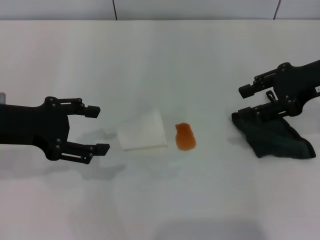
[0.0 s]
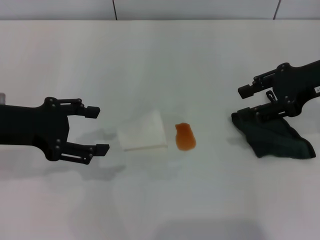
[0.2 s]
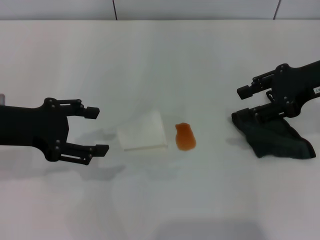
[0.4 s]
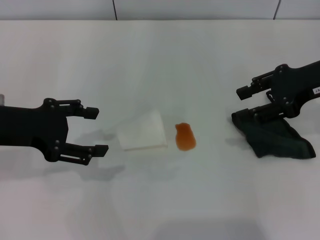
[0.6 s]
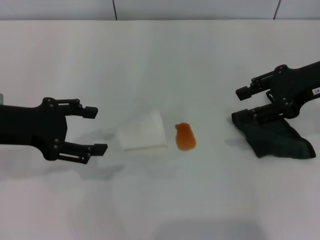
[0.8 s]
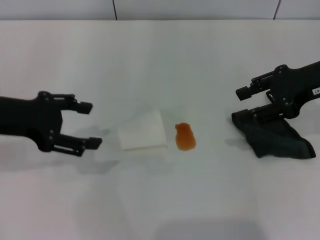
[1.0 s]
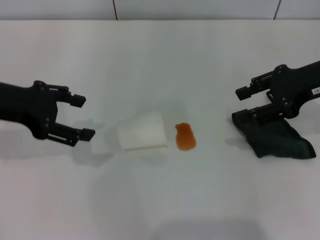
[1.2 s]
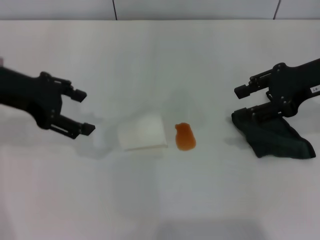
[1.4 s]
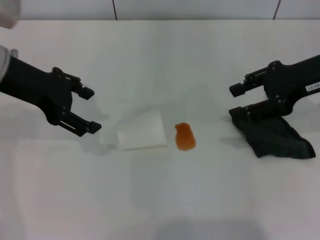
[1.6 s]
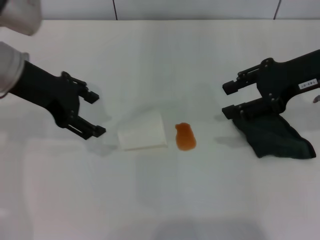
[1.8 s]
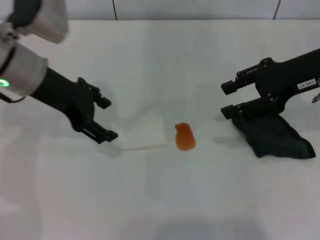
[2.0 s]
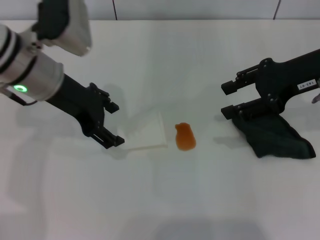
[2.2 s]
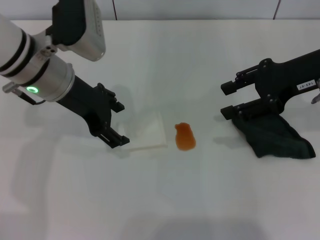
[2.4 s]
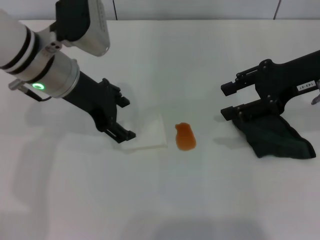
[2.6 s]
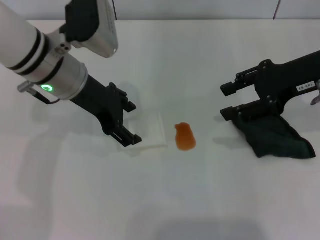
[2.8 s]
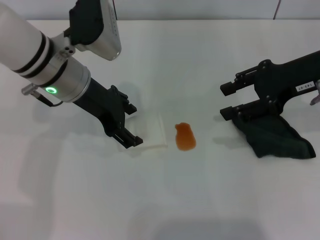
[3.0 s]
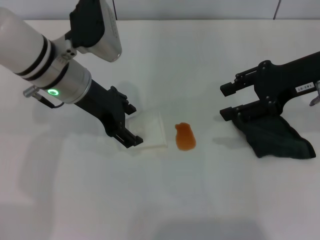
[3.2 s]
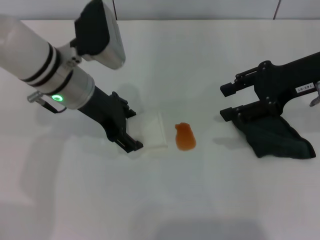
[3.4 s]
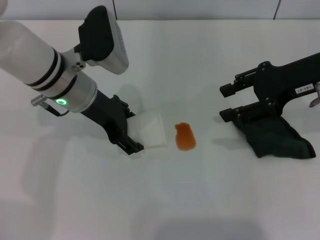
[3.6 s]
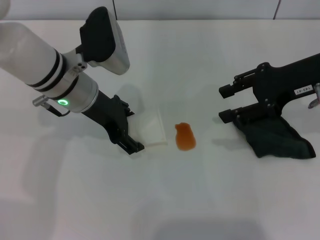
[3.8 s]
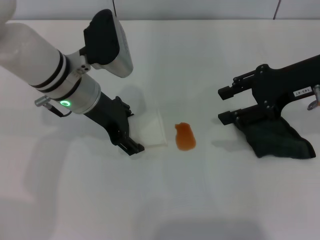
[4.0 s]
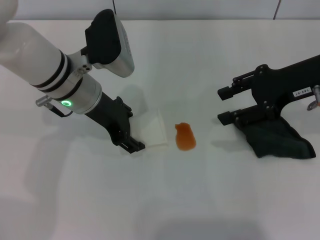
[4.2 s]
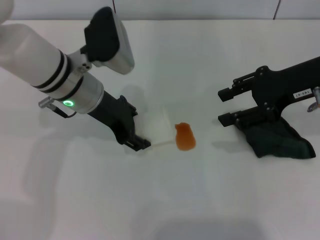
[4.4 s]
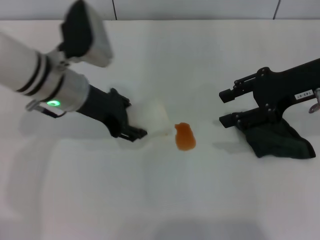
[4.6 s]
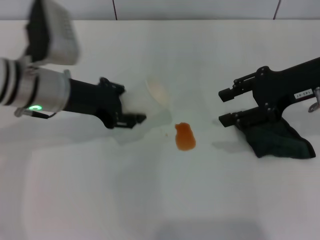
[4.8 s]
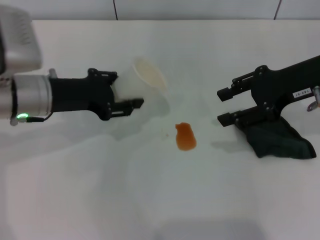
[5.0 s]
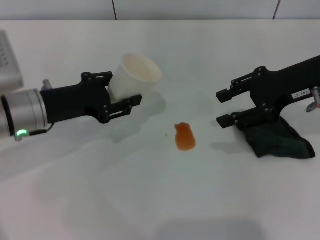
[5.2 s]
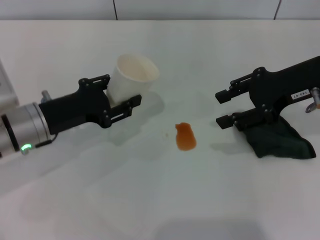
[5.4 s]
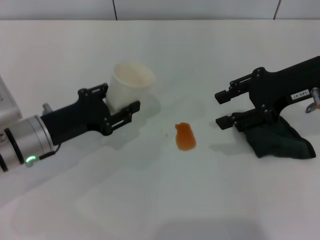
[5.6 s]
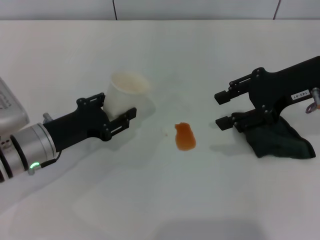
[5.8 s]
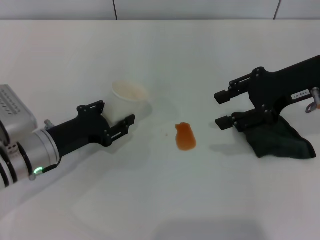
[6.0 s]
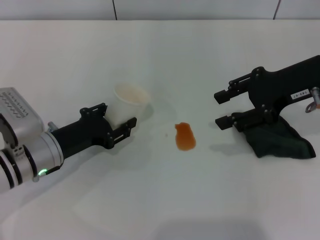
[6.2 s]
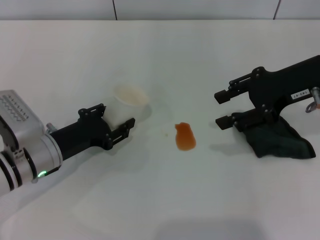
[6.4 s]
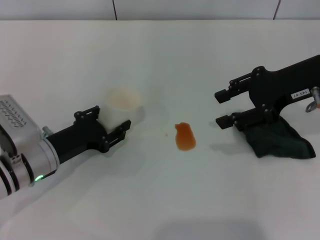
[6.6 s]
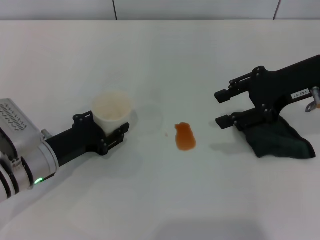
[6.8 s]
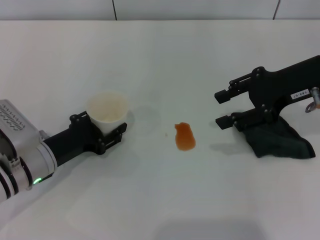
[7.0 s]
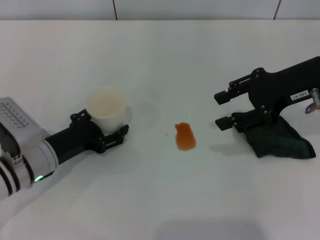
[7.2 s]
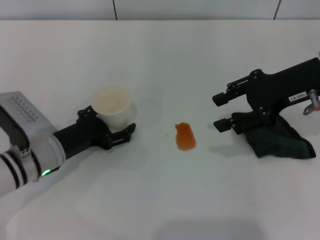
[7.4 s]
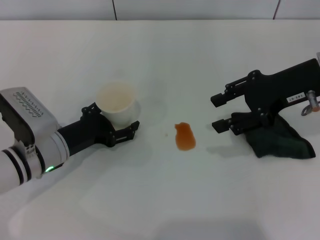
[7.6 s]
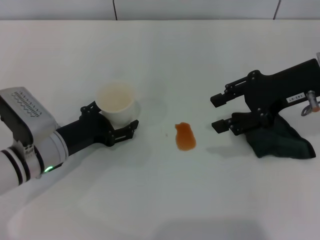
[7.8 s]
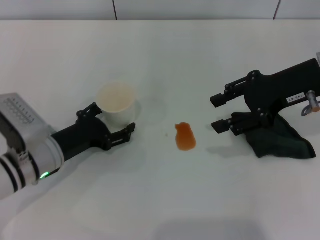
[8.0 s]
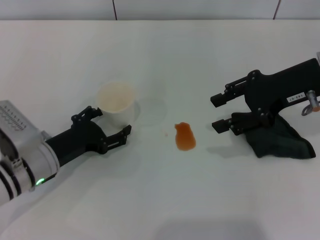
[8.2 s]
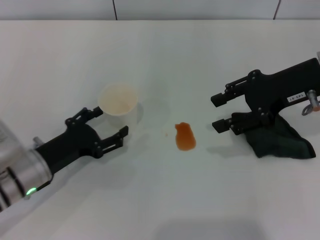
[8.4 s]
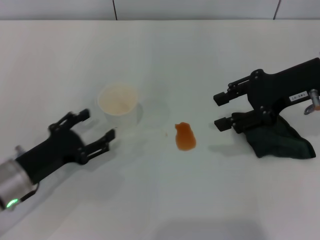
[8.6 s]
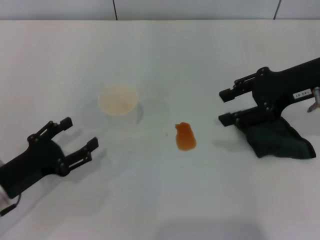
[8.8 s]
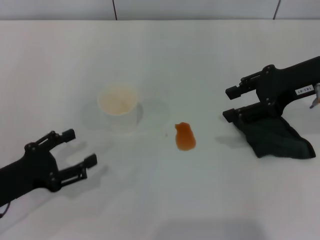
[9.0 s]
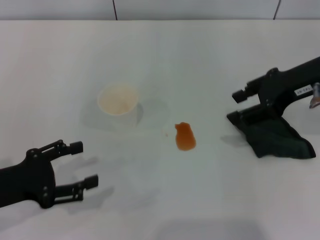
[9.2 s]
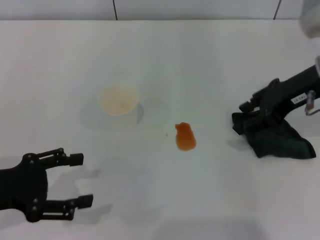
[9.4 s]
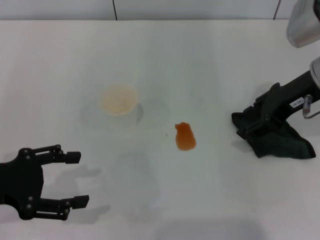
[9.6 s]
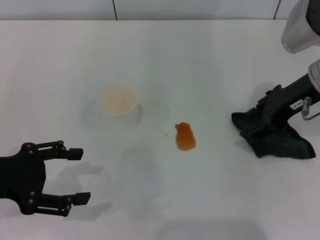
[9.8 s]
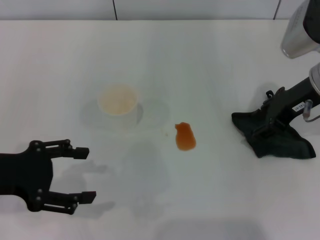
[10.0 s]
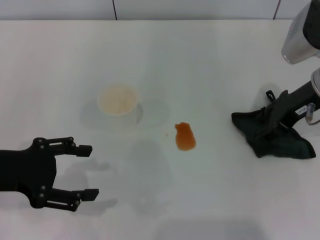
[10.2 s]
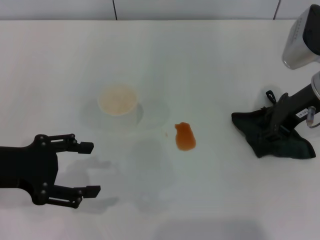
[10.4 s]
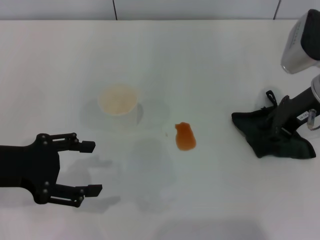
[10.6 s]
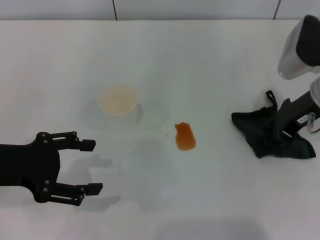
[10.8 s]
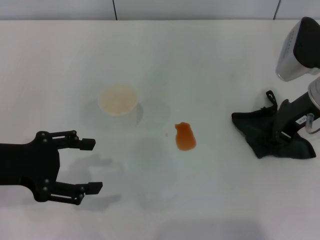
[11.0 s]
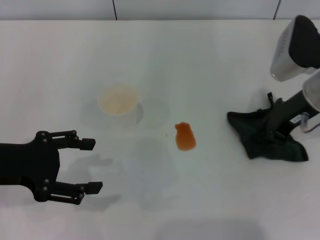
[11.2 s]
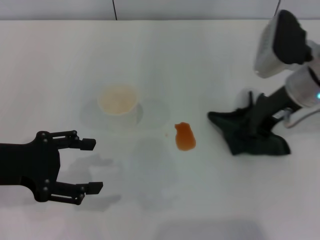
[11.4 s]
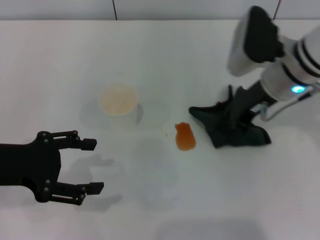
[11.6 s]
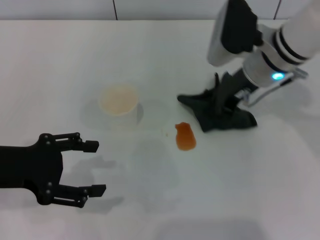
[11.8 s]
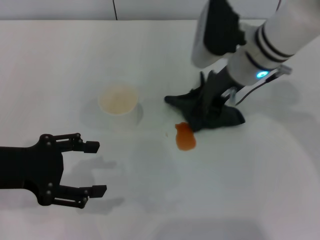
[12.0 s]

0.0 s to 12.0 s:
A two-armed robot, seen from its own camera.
Step, 0.0 to 4.2 s: Grasp the paper cup with the left gripper.
Step, 4.4 to 8.4 s: Stand the paper cup upright with the left gripper.
Step, 8.6 to 11.0 s: Grasp the rag with the right gripper.
0.0 to 1.6 s: The left gripper travels forward by approximately 5 cm.
1.6 to 3.0 s: The left gripper goes about 10 cm to the right.
3.0 to 4.4 s: The left gripper closes.
4.4 to 6.0 s: The left gripper is displaced downward, to the left and backward by approximately 15 cm, and closes up.
6.0 to 7.6 s: The left gripper opens.
7.6 to 9.0 s: The left gripper moves backward and to the left, some 10 cm.
9.0 to 10.4 s: The left gripper moves upward, some 10 cm.
10.4 to 12.0 s: The right gripper shifts roughly 10 cm to the left, and closes its fingers.

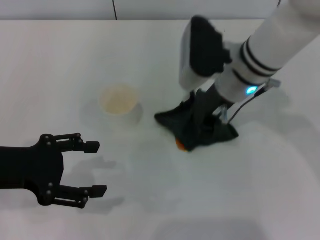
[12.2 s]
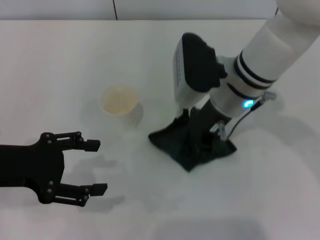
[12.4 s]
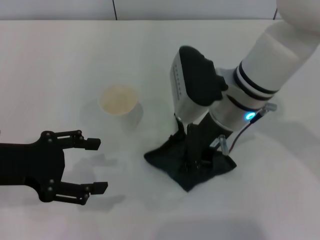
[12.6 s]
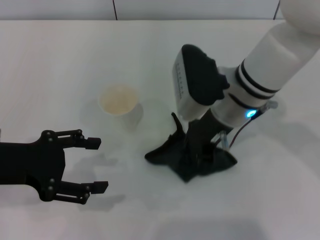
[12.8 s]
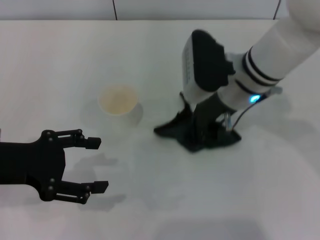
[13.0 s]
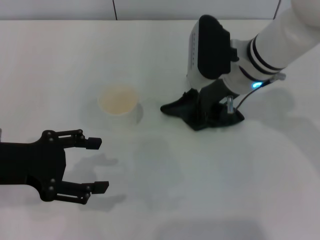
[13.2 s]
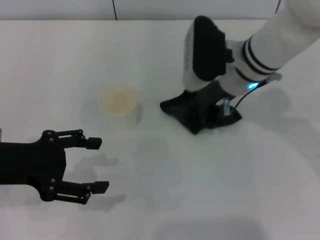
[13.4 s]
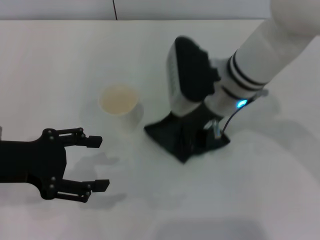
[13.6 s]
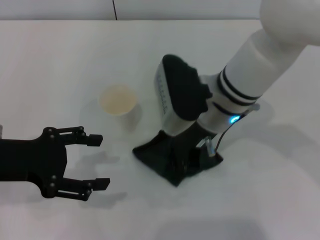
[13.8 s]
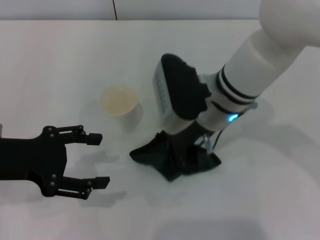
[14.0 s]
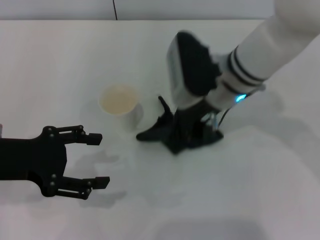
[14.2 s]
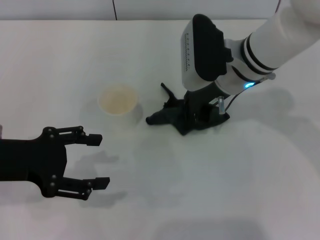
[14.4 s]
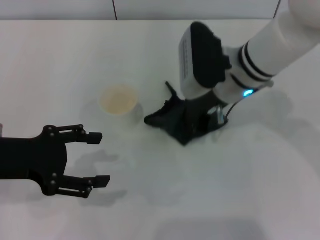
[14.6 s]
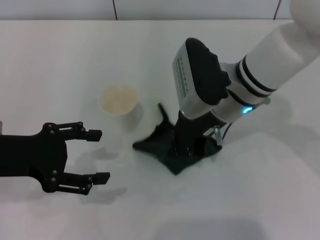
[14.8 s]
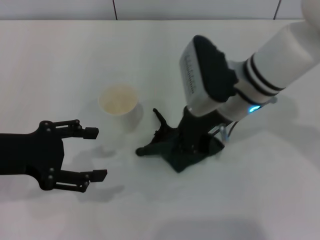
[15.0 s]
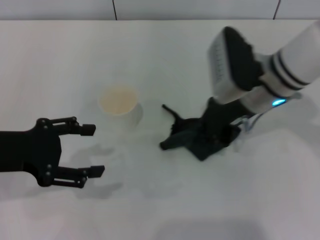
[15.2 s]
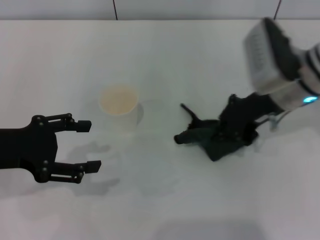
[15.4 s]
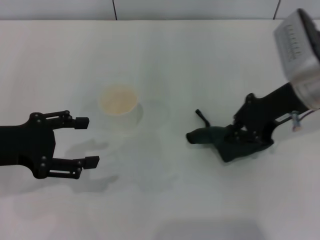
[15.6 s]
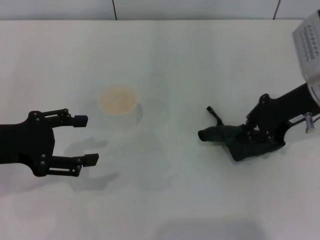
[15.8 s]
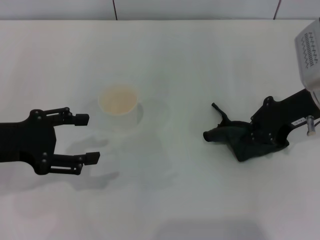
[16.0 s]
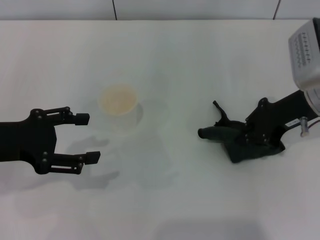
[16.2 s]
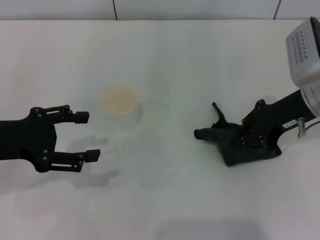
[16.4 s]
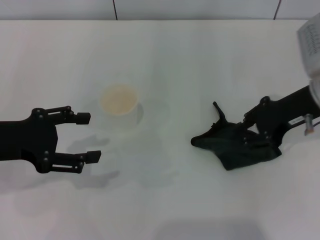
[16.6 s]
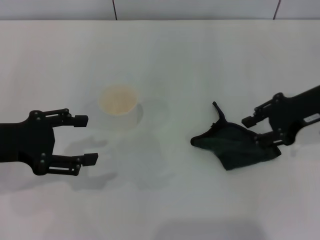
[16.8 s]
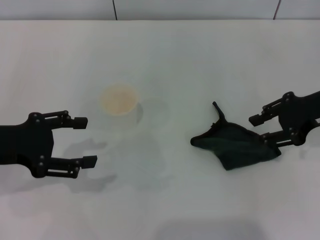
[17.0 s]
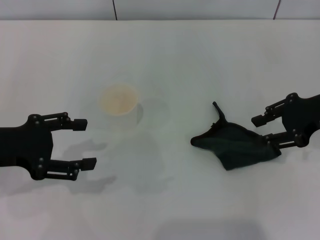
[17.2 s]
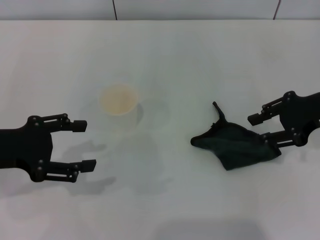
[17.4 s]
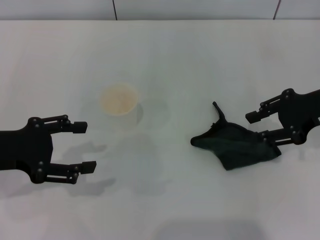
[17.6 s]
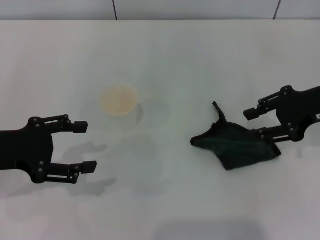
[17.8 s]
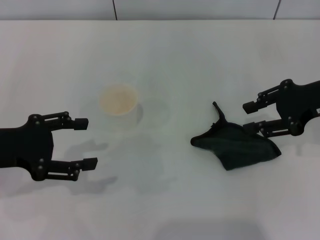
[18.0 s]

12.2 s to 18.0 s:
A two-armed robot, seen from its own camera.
Step, 12.2 to 15.4 s: Wipe the stains off the table with the right gripper.
Step, 15.6 to 16.8 s: Place the rag on the table with the right gripper.
12.2 to 15.0 s: The grippers move only a little.
15.0 to 16.6 s: The right gripper is displaced to the right by some 15 cm.
16.6 to 18.0 s: The right gripper opens up.

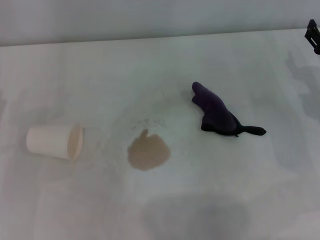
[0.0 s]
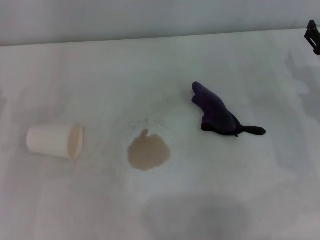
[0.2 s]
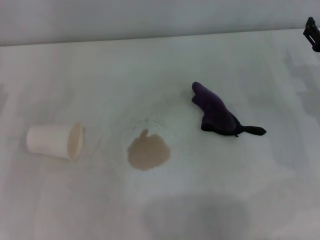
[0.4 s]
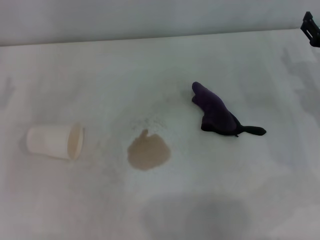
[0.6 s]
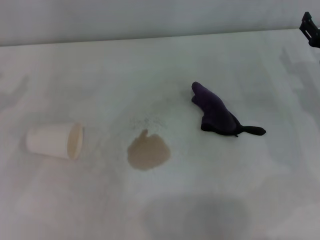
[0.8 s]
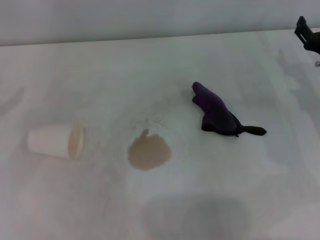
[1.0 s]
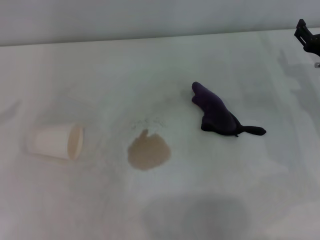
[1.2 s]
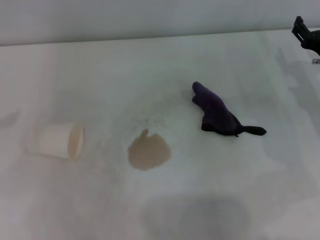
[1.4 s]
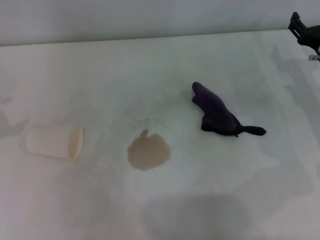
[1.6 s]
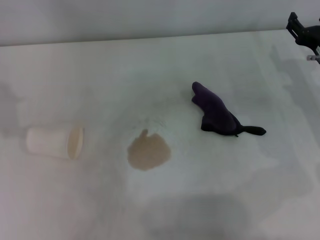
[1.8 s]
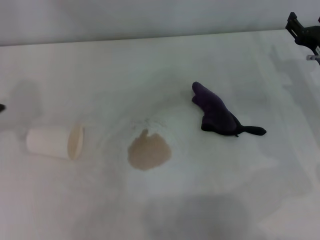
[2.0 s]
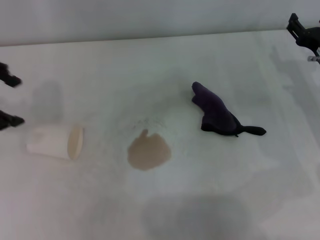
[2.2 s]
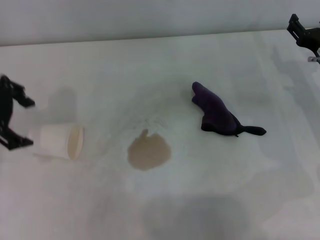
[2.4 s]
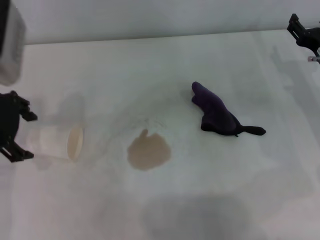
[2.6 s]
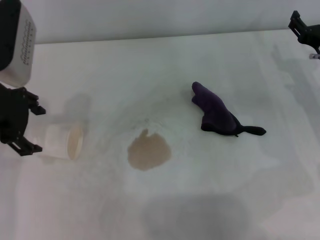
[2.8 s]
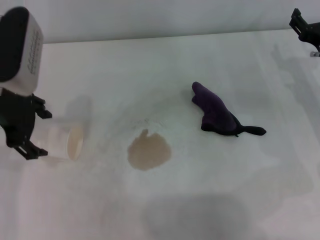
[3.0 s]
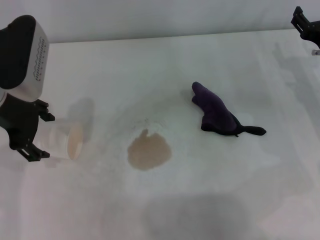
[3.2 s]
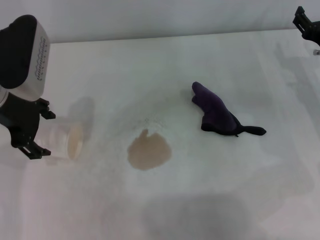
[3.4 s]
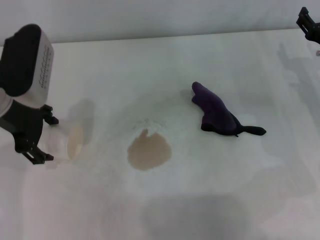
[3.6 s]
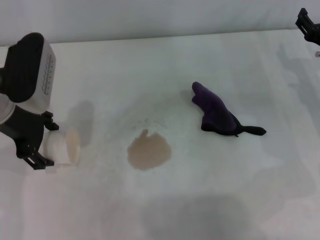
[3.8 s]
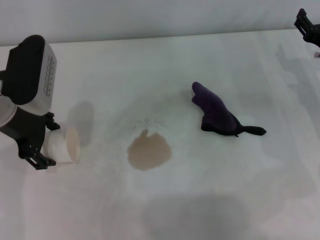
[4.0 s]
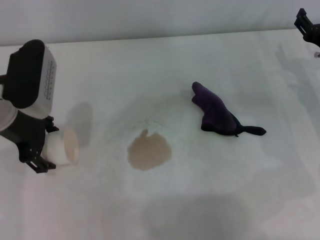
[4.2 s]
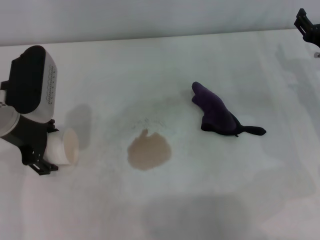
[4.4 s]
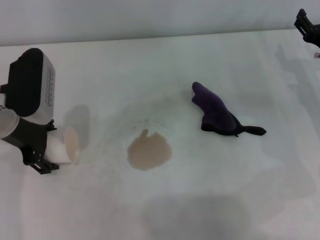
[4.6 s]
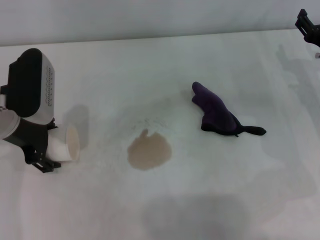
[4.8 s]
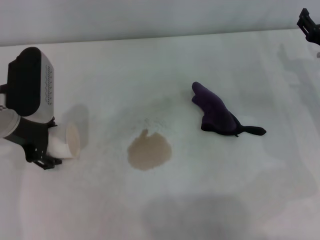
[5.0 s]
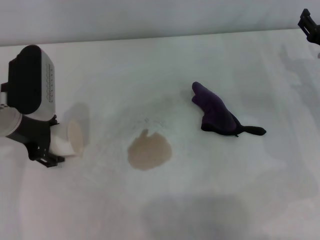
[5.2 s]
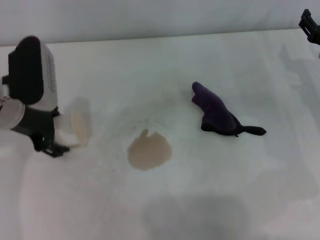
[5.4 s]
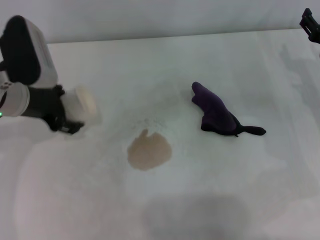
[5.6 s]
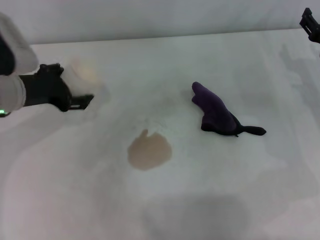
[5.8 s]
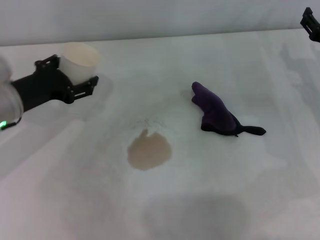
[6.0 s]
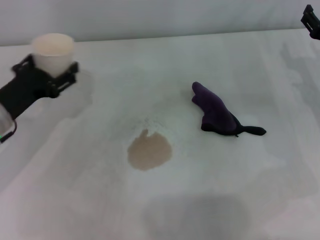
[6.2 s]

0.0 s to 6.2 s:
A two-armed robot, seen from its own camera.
Step, 0.0 to 4.6 s: Grasp the paper cup with the left gripper.
1.6 to 3.2 s: The left gripper goes roughly 20 cm to the right.
3.2 to 4.6 s: The left gripper travels downward by some 5 cm.
4.6 to 6.2 s: The left gripper is displaced downward by some 5 cm.
